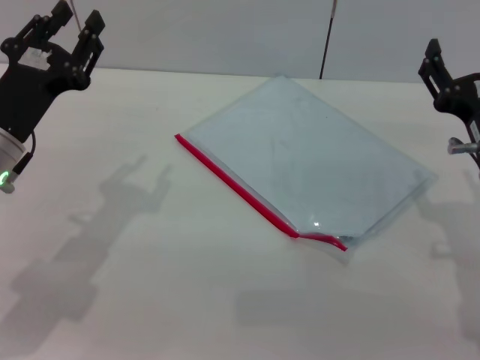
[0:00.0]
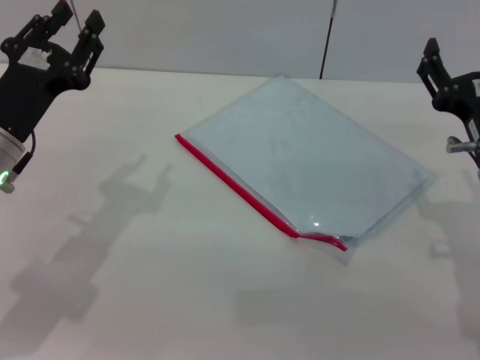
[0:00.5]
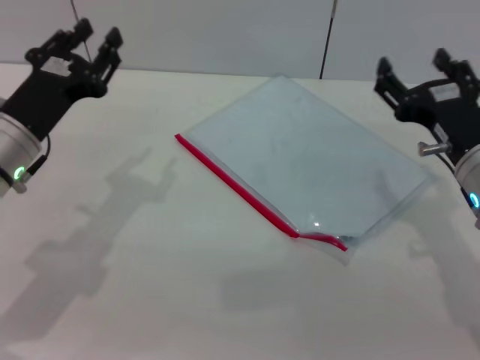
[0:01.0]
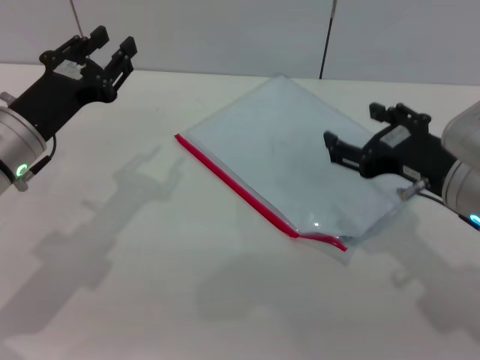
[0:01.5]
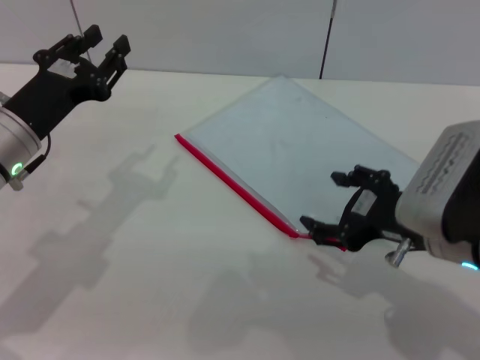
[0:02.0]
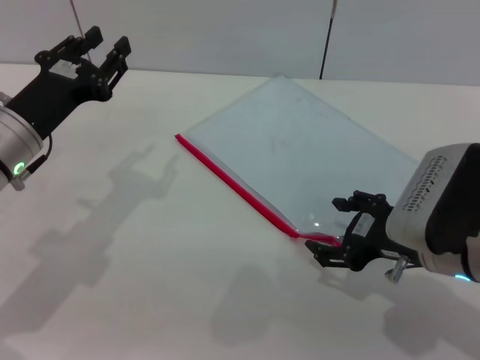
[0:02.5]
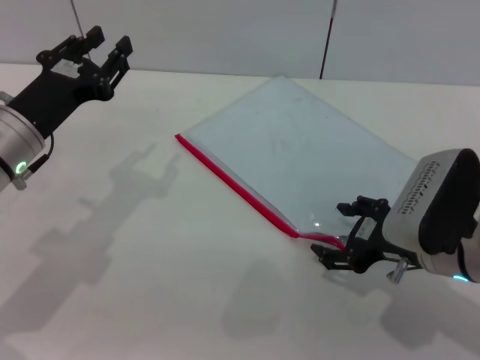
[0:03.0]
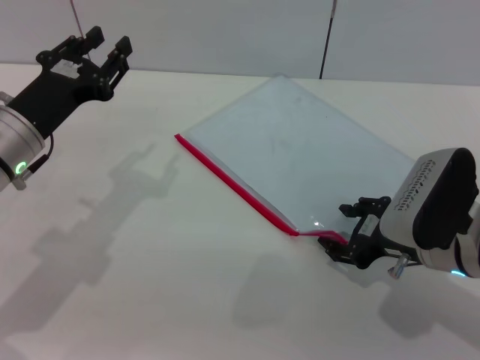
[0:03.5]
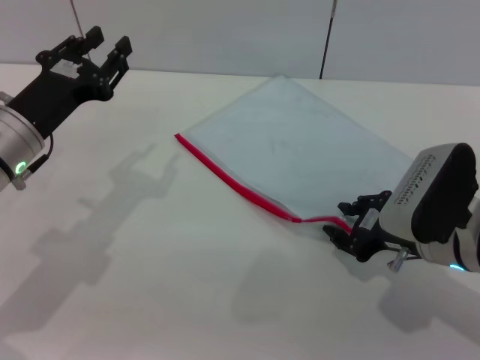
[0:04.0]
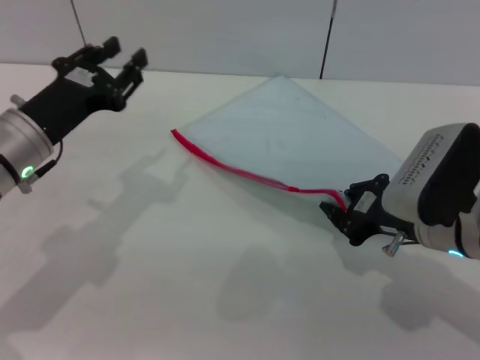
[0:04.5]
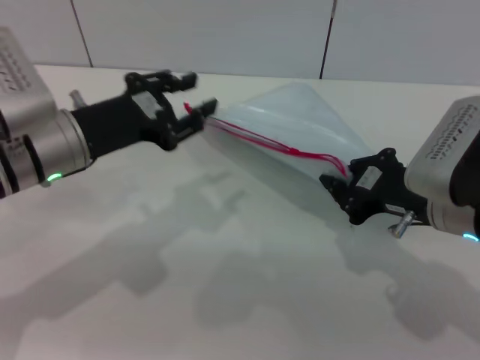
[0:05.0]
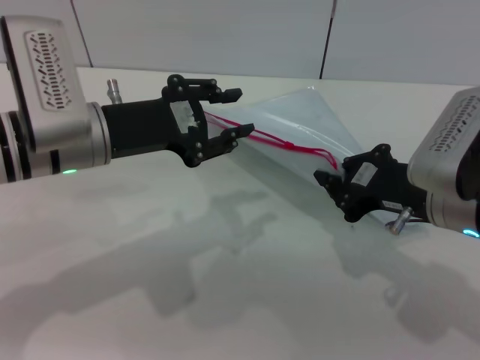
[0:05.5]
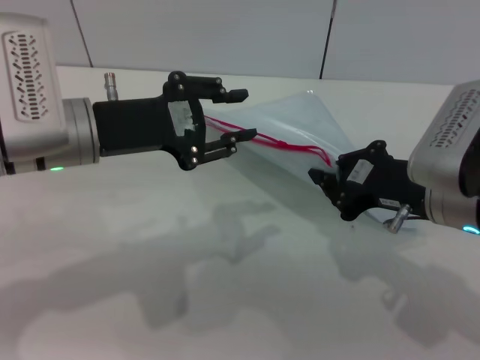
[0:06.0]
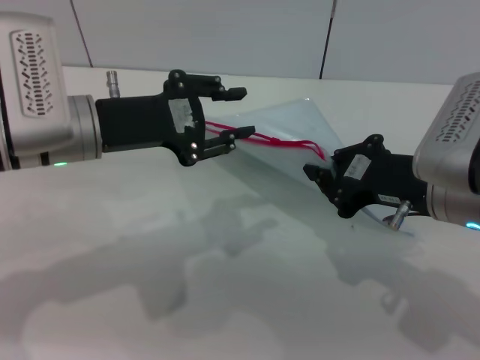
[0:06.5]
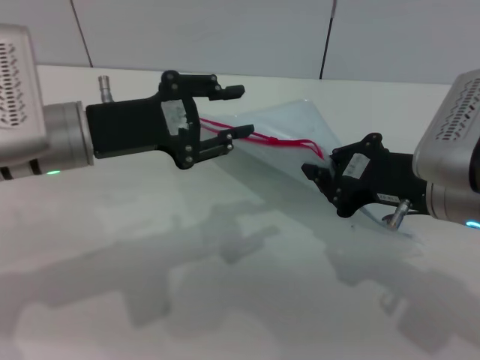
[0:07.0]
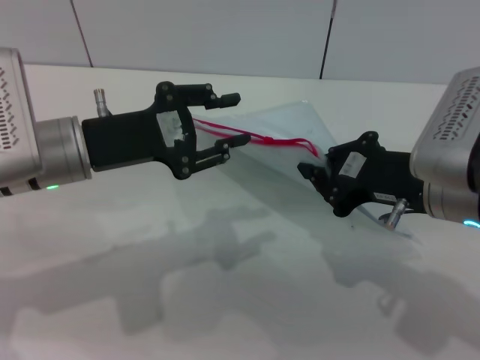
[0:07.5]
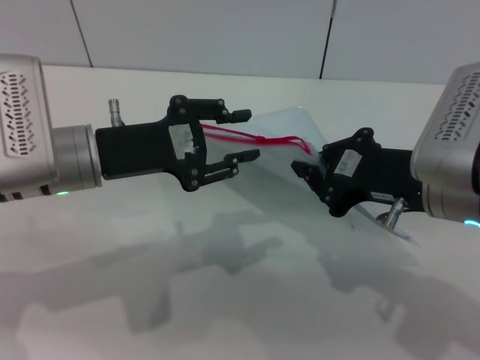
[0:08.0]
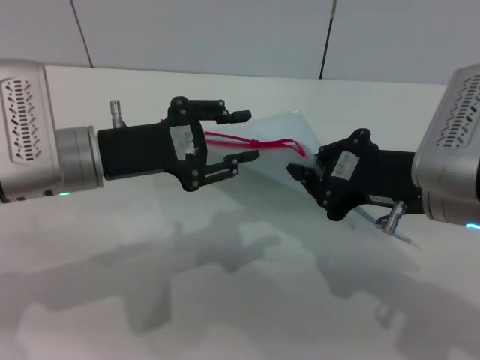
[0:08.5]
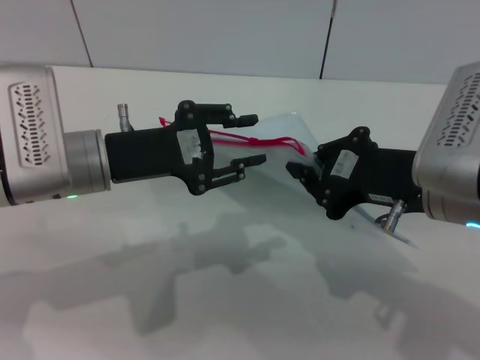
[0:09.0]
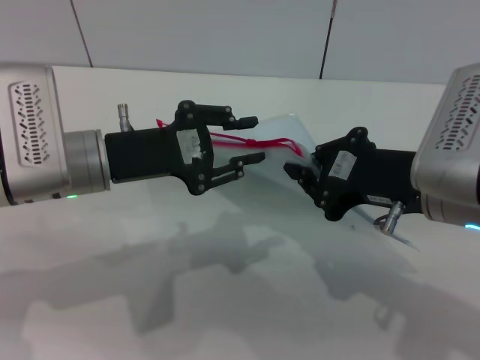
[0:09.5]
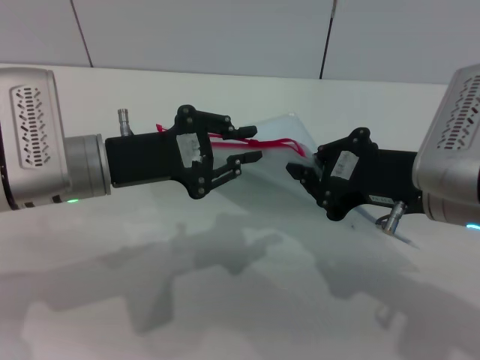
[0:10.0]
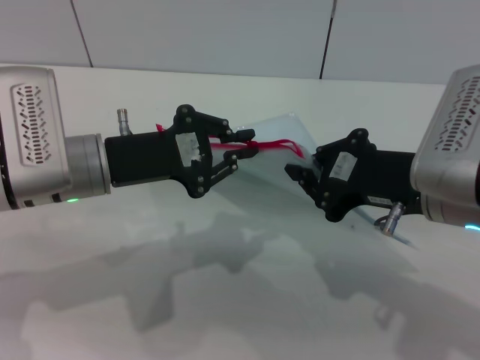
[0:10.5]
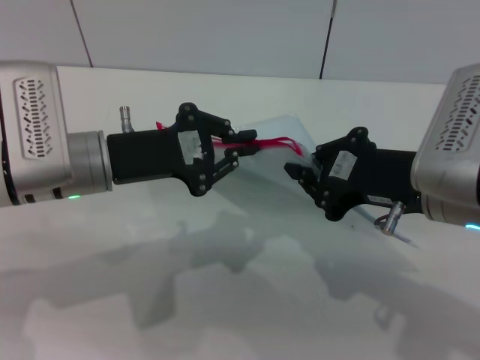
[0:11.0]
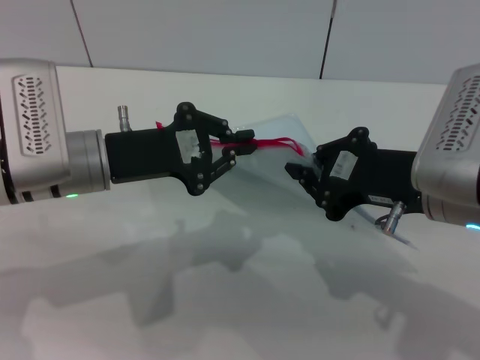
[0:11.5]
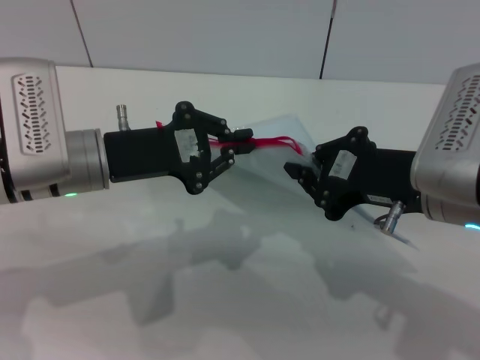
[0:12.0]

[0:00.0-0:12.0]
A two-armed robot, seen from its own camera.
Step, 0:00.0 to 0:05.0: Pick up the transparent plastic bag with the right gripper.
0:02.0 to 0:04.0: The right gripper moves downward, roughly 5 cm.
0:04.0 to 0:06.0: The left gripper heads upward and to the right, covering approximately 5 cm. Meanwhile the right gripper moves upward, approximately 5 cm, and closes up.
0:06.0 to 0:08.0: The grippers move only a little.
0:08.0 to 0:10.0: The two grippers keep their place.
0:10.0 to 0:12.0: The left gripper closes its fingers.

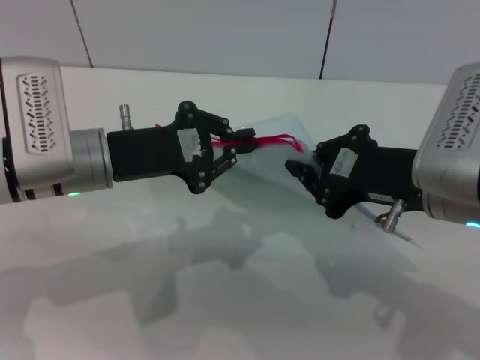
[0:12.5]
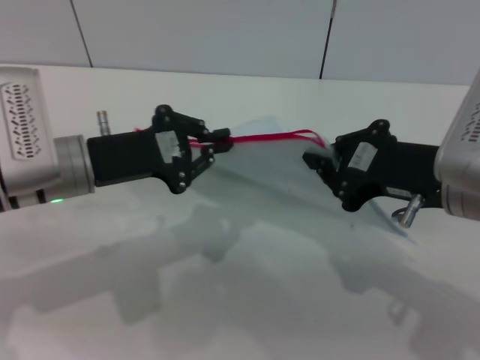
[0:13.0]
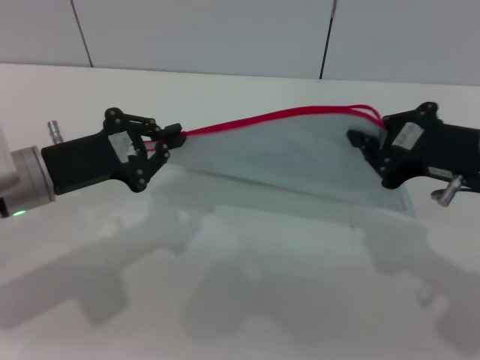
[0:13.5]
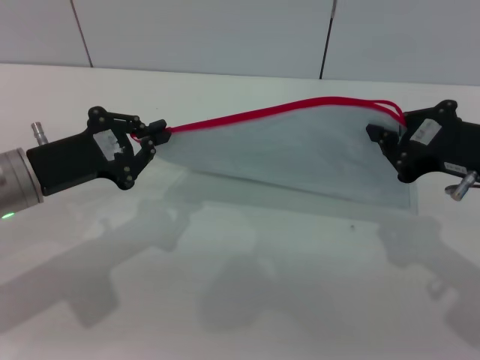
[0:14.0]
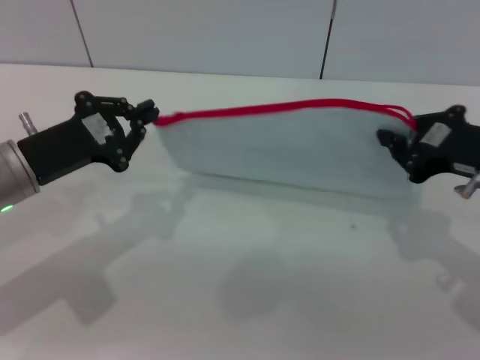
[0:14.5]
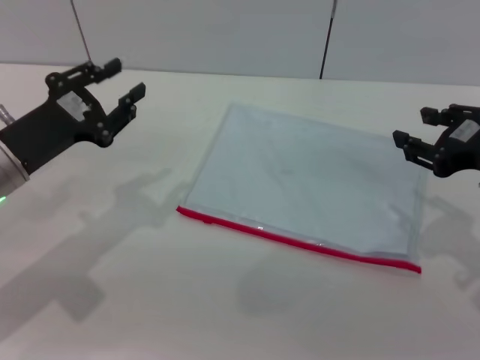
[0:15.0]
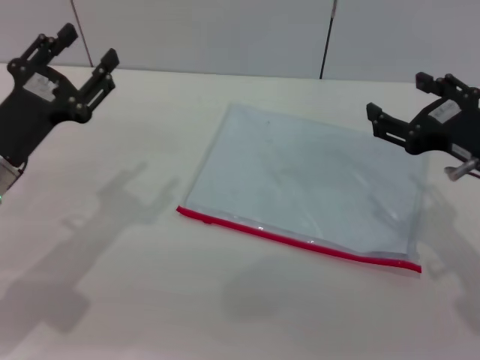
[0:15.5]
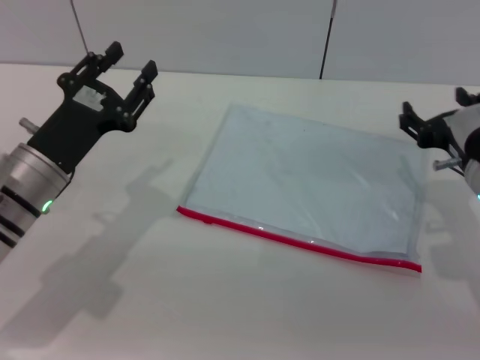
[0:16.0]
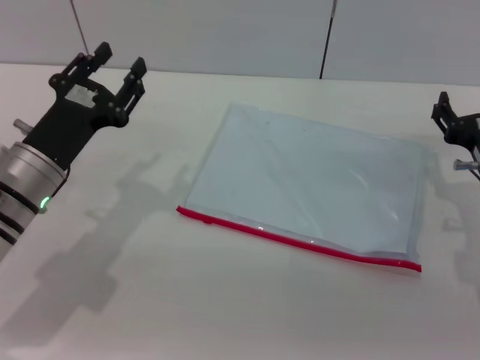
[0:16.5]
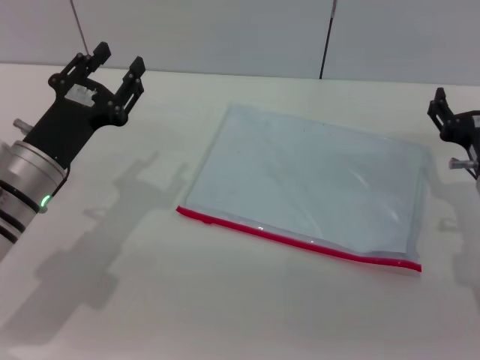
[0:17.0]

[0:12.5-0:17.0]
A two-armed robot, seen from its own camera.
Step, 0:12.5 to 0:14.5: Pulling up the zipper on the transparent plastic bag with the left gripper to close it.
0:12.5 to 0:14.5: The left gripper heads to the left, covering about 5 cm. Meanwhile the right gripper travels to the right by about 5 cm.
0:14.5 to 0:17.0: The right gripper moves downward, some 10 cm, and opens its fingers, while the left gripper opens up.
